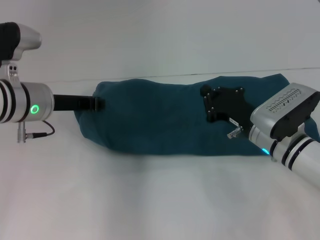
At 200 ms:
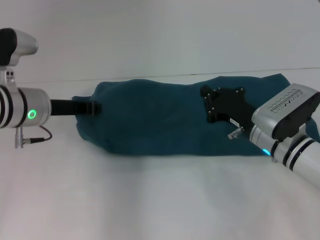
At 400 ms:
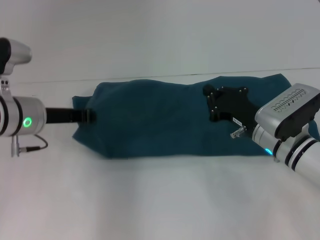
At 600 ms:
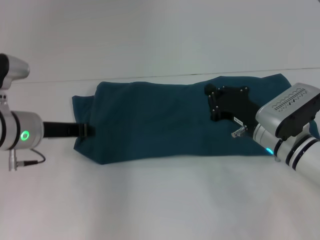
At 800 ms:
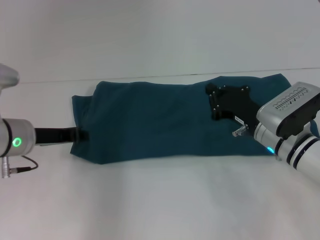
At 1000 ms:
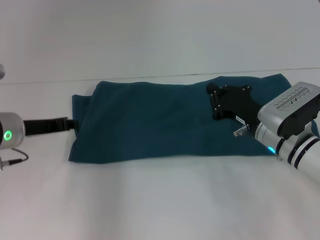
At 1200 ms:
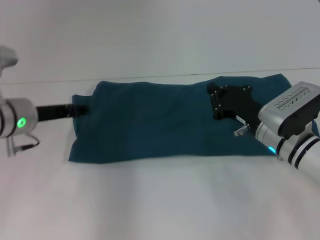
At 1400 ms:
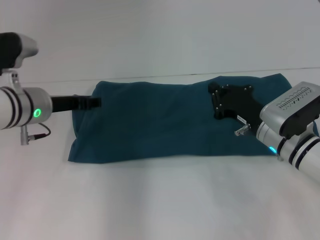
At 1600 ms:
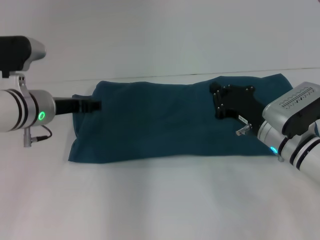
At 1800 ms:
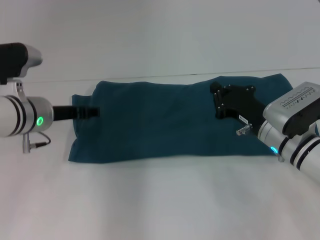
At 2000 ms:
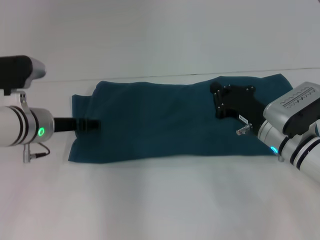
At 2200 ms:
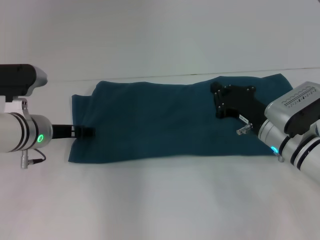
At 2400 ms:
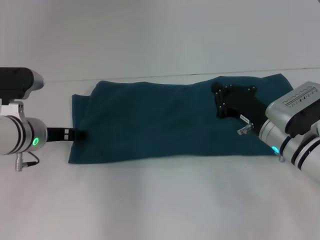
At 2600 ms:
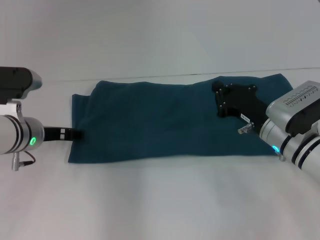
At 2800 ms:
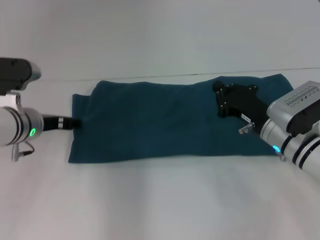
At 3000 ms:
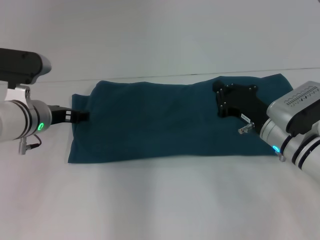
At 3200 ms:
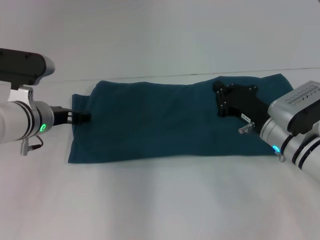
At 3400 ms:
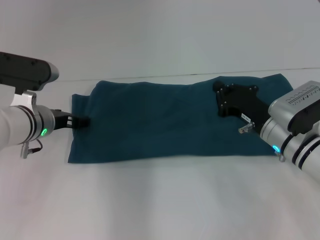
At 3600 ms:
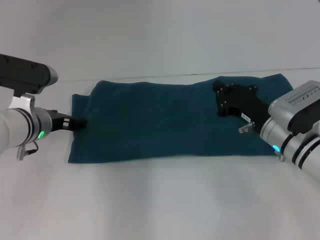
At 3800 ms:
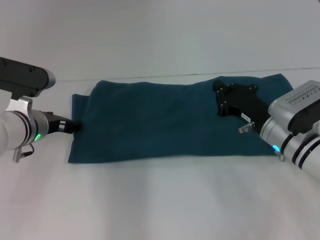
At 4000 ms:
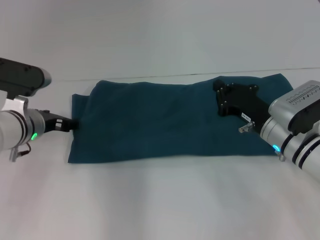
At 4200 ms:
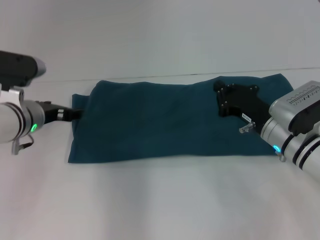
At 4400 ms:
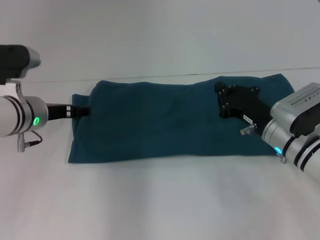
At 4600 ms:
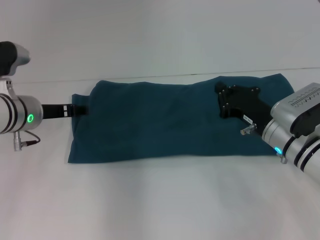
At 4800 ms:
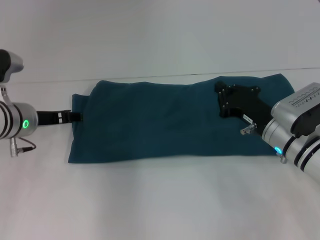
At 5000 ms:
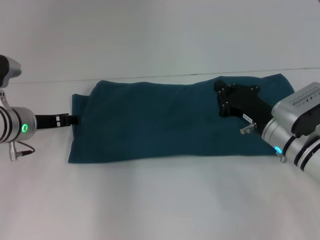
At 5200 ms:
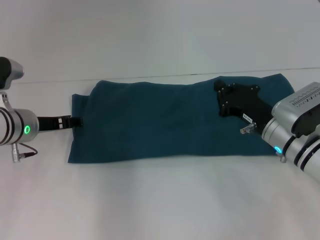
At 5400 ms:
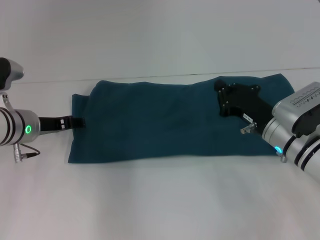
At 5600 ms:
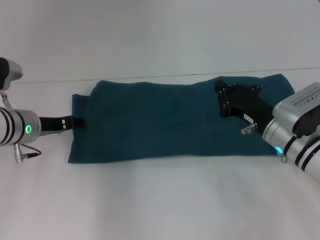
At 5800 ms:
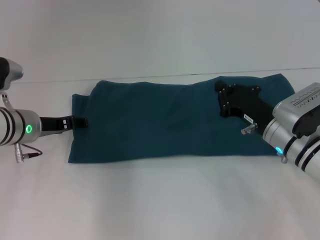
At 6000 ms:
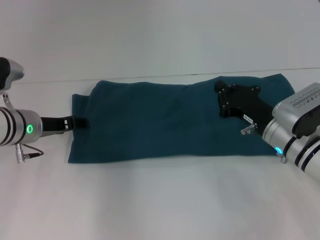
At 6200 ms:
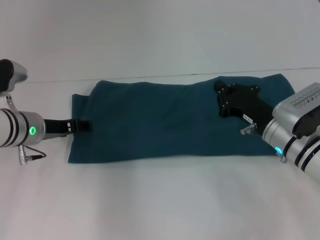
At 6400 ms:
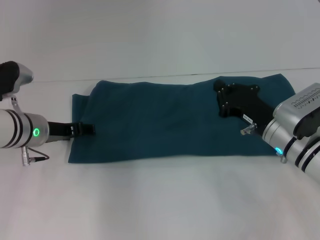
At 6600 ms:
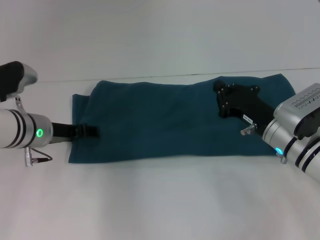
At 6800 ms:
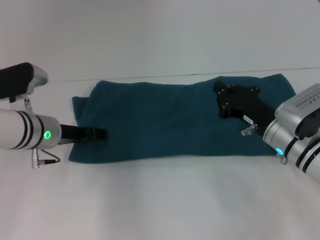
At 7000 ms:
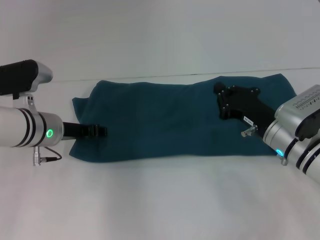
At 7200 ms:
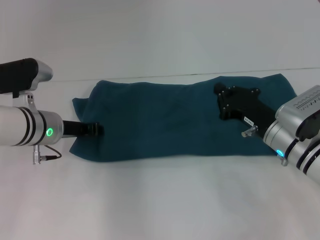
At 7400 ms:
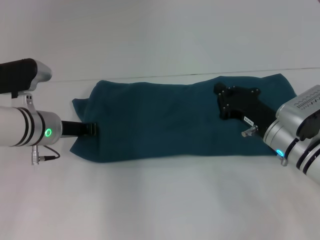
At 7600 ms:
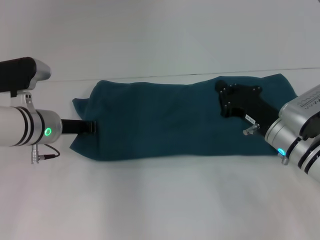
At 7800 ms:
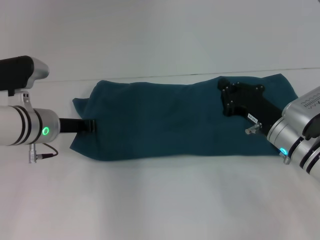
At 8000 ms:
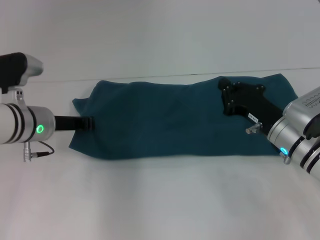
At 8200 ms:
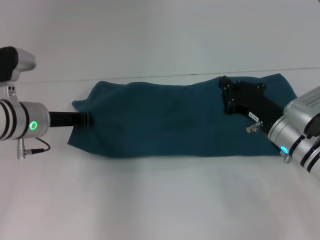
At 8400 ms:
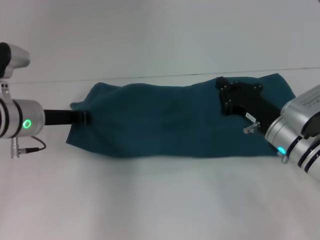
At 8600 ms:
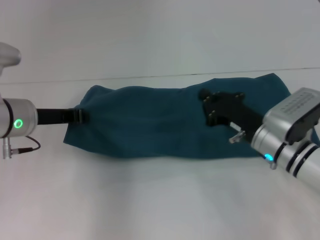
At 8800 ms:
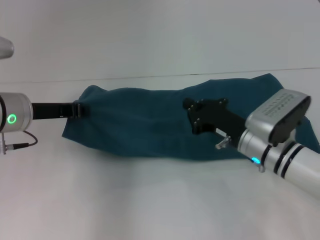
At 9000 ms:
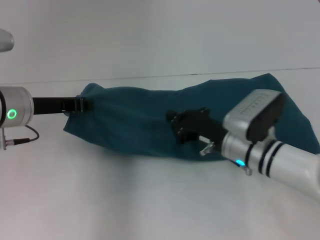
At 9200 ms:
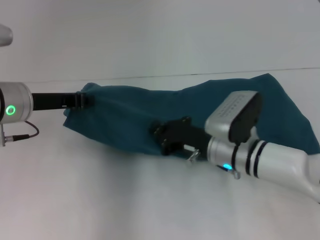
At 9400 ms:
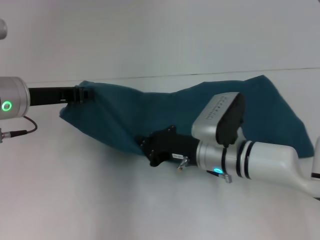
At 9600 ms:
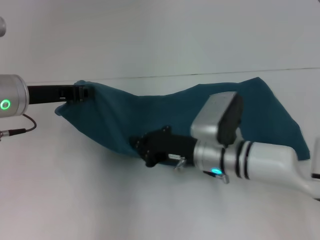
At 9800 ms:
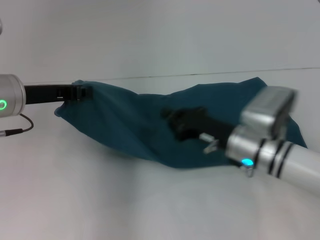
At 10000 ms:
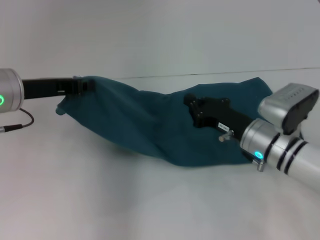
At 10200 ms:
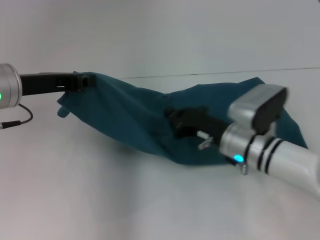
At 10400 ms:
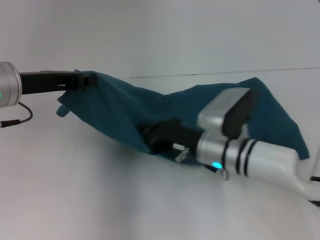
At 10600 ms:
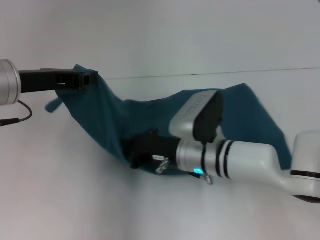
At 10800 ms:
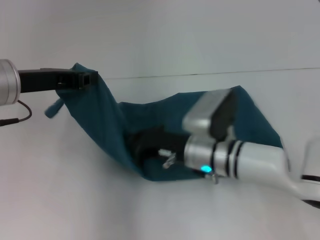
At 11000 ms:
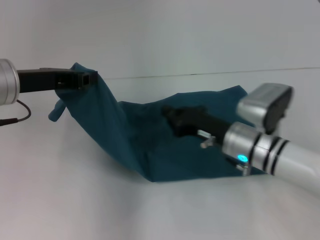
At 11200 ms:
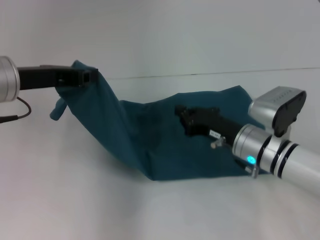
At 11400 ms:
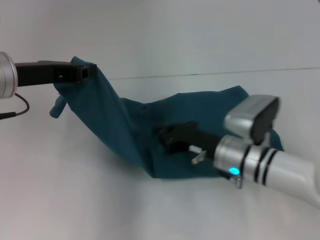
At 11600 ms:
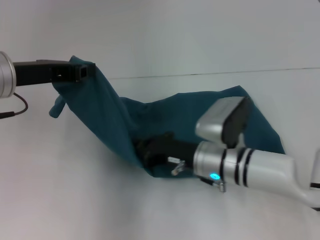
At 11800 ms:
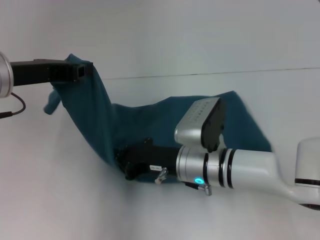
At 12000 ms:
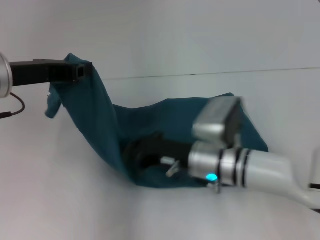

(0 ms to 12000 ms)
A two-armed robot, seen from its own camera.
0 ms - 1600 ms: The left gripper opens up.
1600 ms - 6000 ms: The grippers stay close to where they were, moving slightly.
6000 ms - 7600 ms: The left gripper closes its fingers.
7600 ms - 9000 ms: The right gripper travels to the left by some 5 cm; the left gripper moves upward, some 5 cm.
9000 ms - 10400 ms: The right gripper goes left and right, approximately 5 cm each way, reversing 2 times.
10400 ms - 12000 ms: The right gripper reaches roughly 5 cm to the right, then returns.

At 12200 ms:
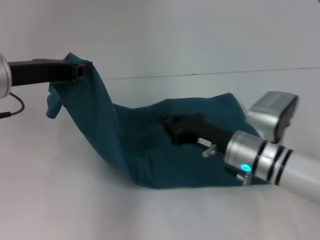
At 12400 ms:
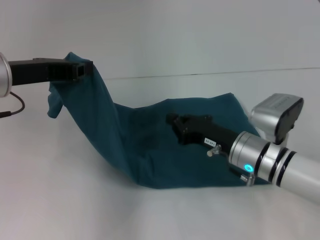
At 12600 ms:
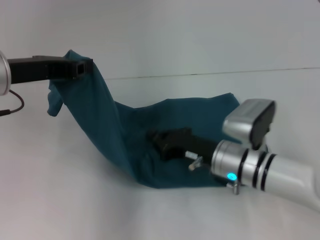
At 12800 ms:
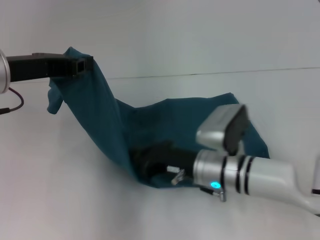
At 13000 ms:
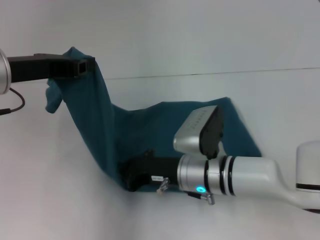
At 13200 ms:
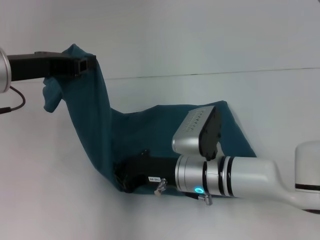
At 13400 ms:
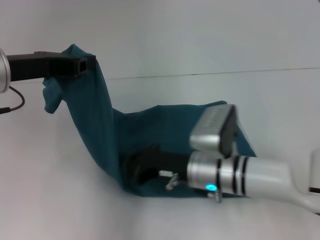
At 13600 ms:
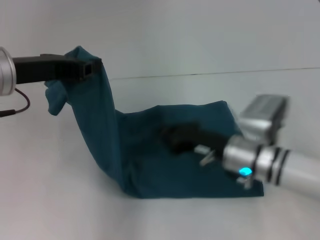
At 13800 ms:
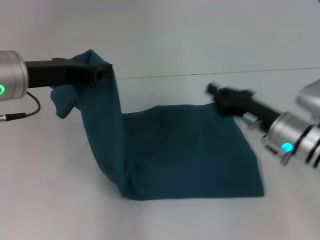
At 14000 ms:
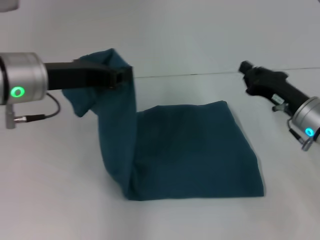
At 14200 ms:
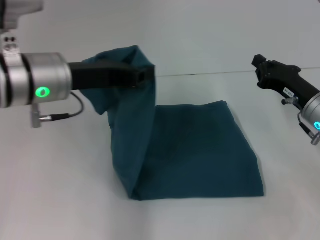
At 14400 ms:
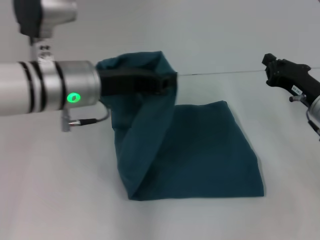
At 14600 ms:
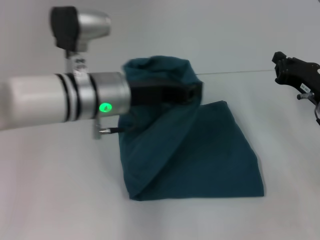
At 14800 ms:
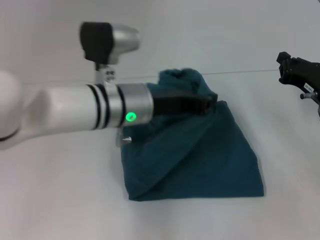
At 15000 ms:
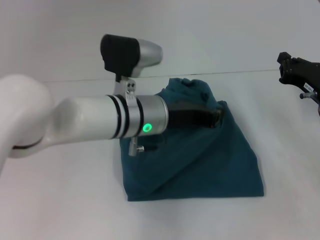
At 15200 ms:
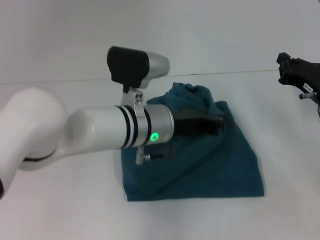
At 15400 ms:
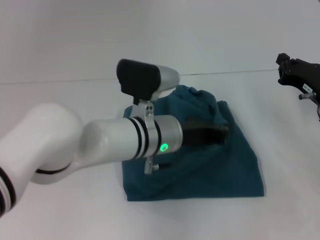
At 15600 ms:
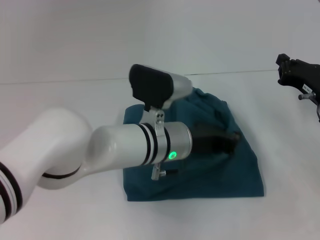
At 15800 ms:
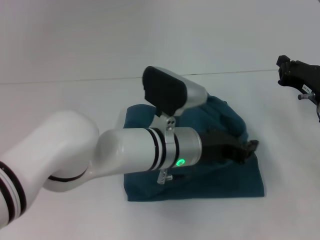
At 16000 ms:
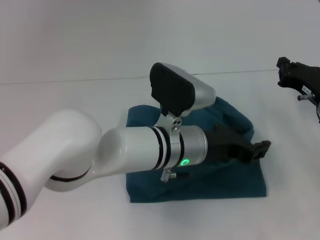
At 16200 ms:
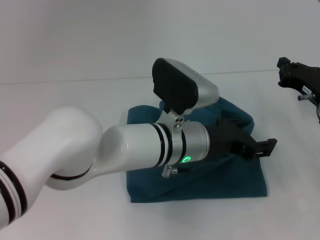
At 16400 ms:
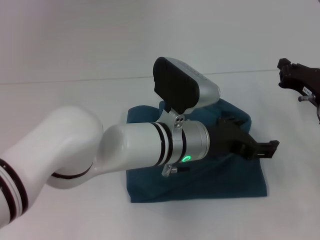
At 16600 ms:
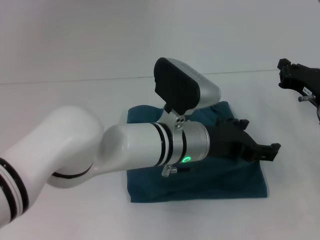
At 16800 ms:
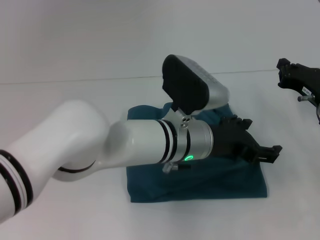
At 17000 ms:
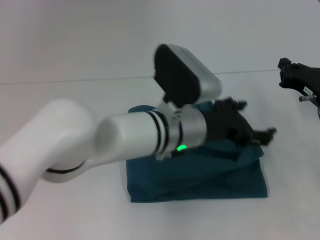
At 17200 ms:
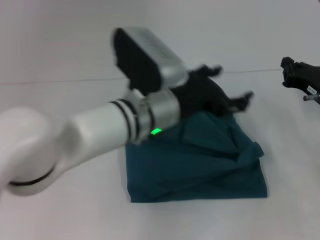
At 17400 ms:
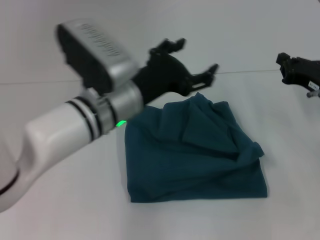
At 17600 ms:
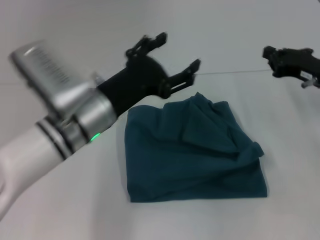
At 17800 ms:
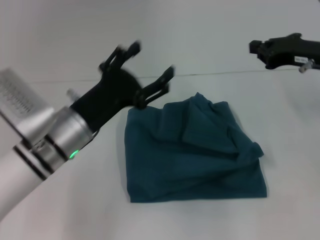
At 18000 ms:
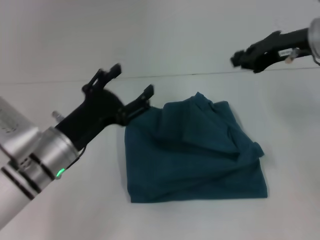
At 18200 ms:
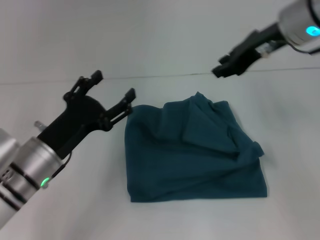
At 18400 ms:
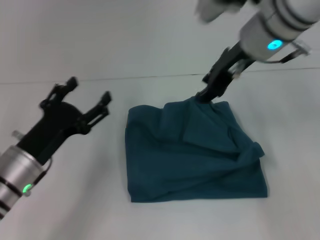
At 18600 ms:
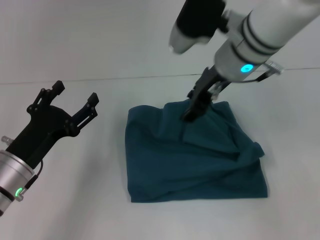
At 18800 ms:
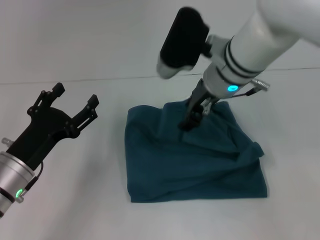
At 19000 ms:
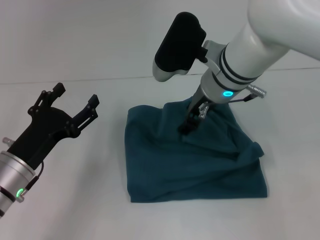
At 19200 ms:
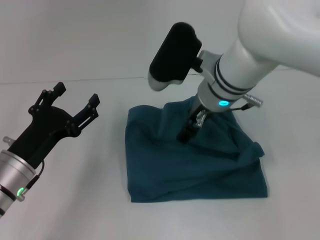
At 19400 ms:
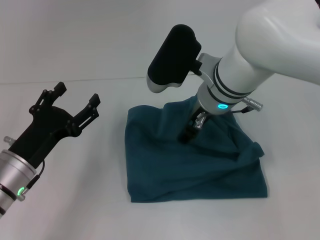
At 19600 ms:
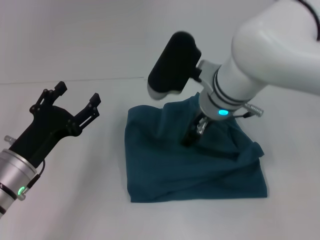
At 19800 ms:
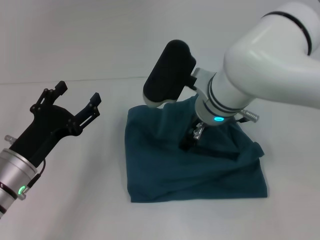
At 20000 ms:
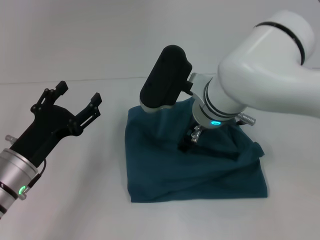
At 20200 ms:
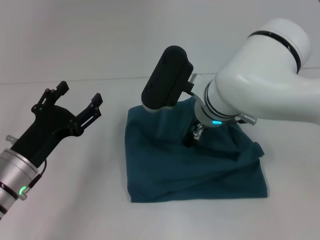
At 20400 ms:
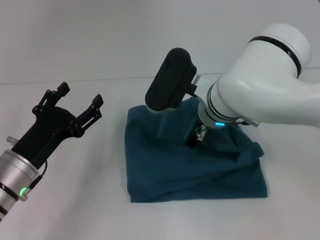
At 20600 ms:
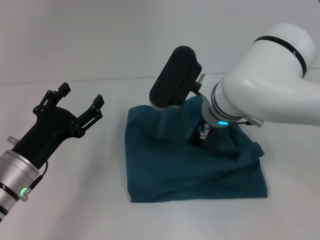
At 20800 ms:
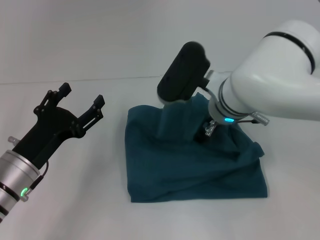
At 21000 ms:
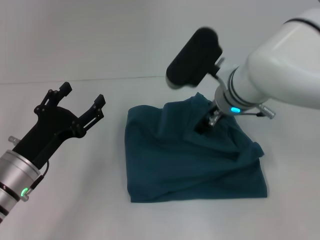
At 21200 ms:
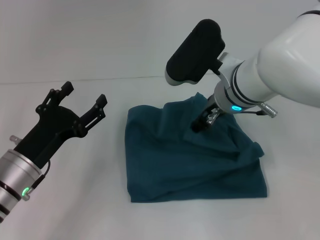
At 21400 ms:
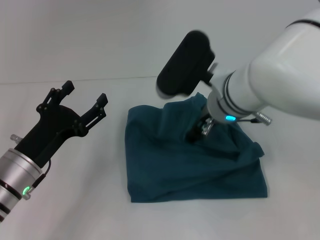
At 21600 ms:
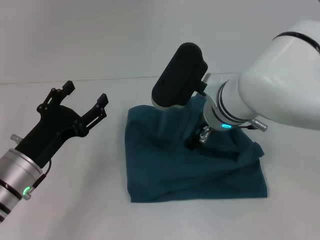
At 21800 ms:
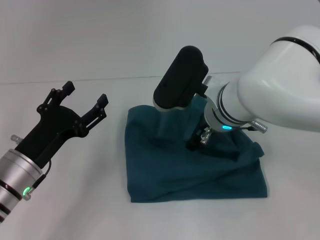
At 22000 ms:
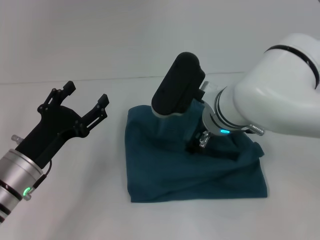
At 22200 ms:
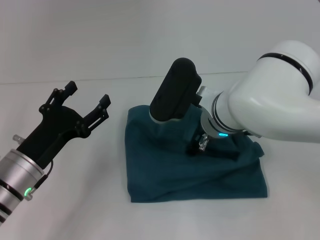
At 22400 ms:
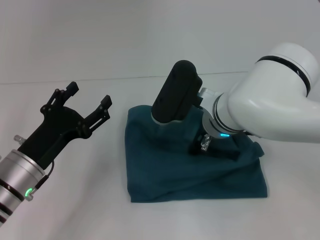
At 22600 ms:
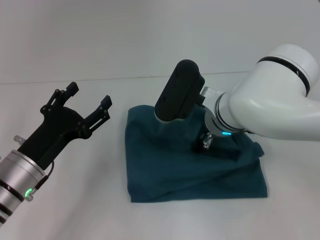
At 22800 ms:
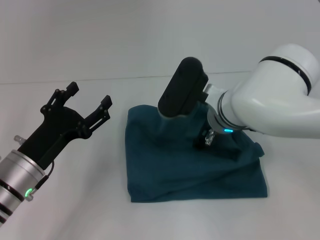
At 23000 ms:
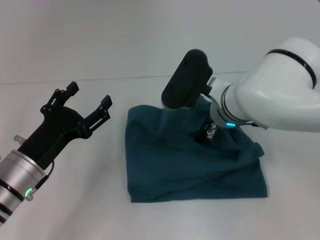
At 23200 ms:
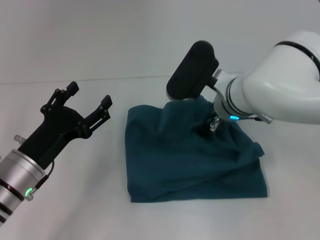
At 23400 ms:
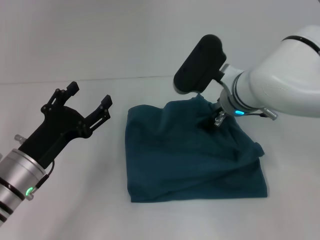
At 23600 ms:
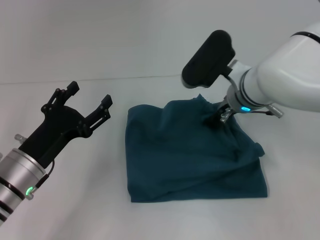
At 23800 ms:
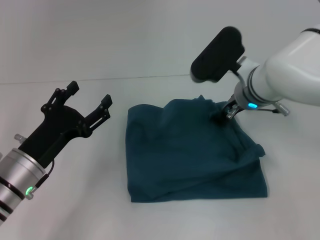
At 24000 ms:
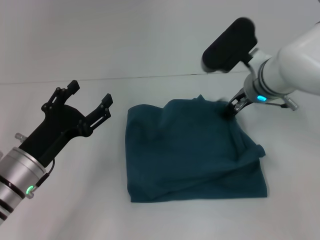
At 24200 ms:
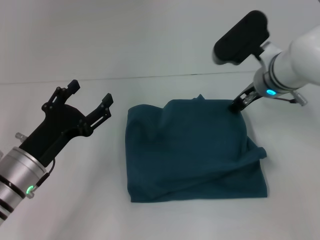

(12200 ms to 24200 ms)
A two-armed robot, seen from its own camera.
Step, 13600 ms - 17000 ms: Fold the clothes to the left.
12200 ms - 13800 ms: The right gripper goes roughly 5 cm to the right.
13800 ms - 15200 ms: The left gripper travels to the right and downward by approximately 20 cm. Meanwhile the right gripper goes roughly 10 cm to the right.
15200 ms - 16600 ms: The left gripper shifts by roughly 5 cm, and opens its fingers.
16600 ms - 18200 ms: The right gripper heads upward and to the left, covering approximately 20 cm, while the left gripper goes approximately 20 cm to the left.
18200 ms - 19800 ms: The right gripper is displaced to the left and downward by some 15 cm, and opens.
19800 ms - 22600 ms: The grippers make only small movements.
22600 ms - 24200 ms: The right gripper is displaced to the right and forward by some 10 cm.
